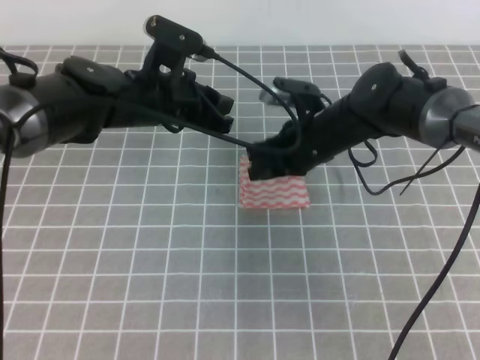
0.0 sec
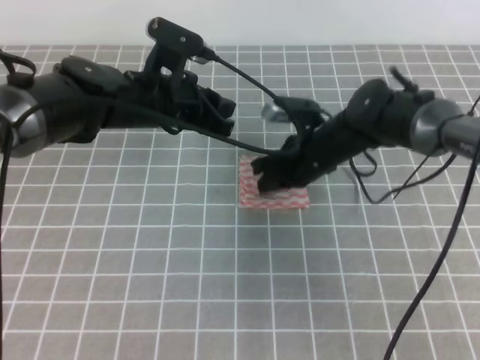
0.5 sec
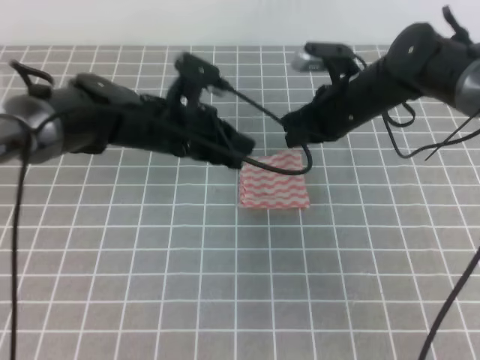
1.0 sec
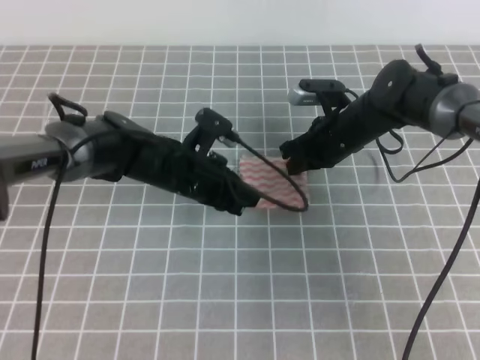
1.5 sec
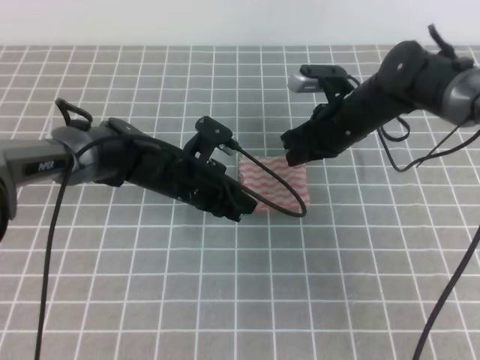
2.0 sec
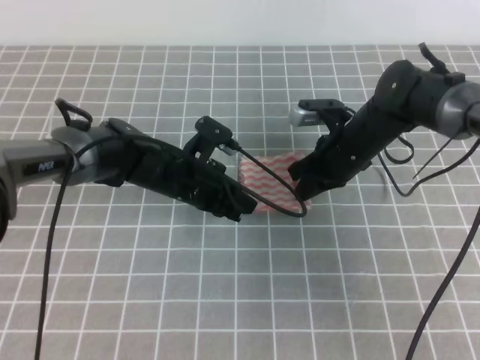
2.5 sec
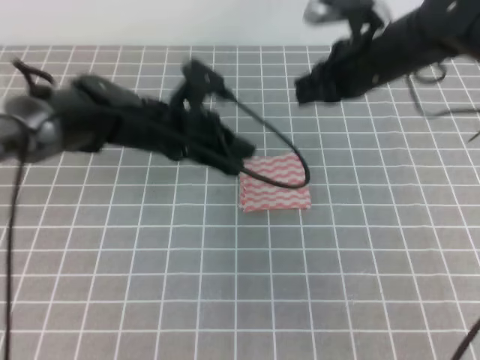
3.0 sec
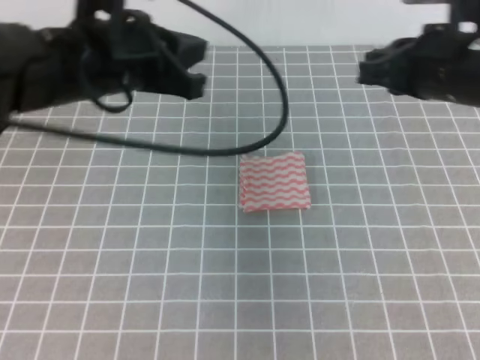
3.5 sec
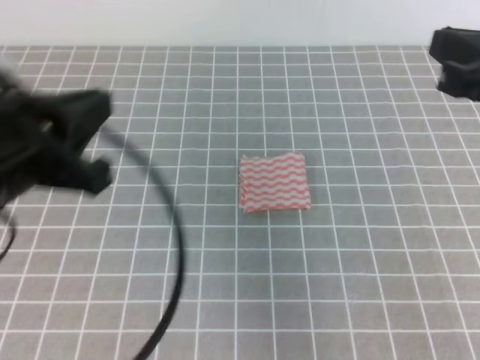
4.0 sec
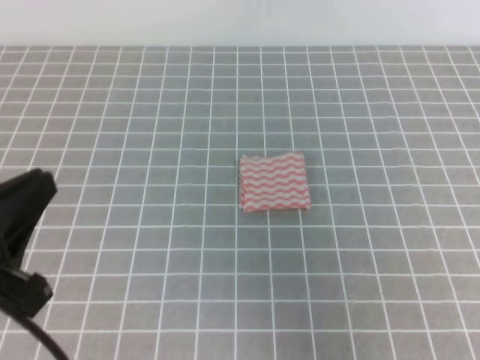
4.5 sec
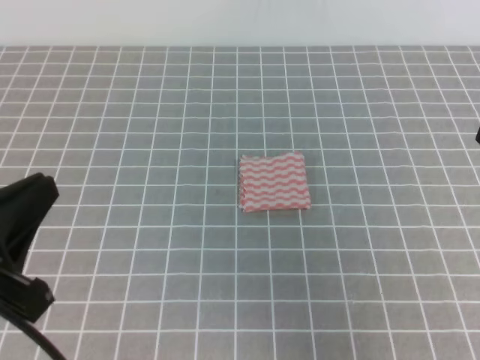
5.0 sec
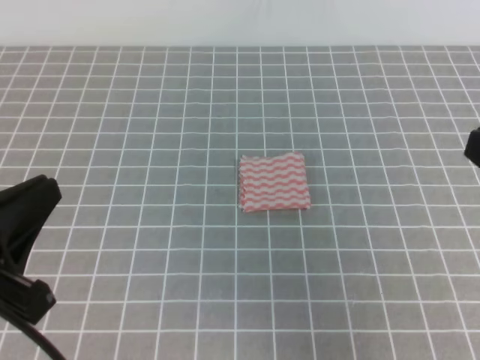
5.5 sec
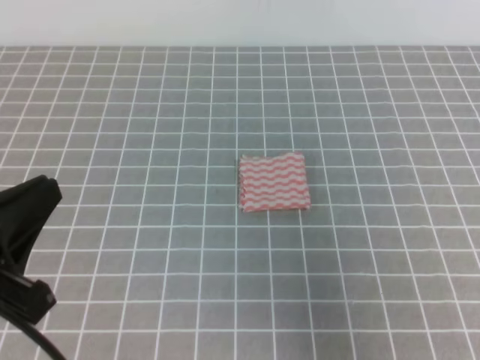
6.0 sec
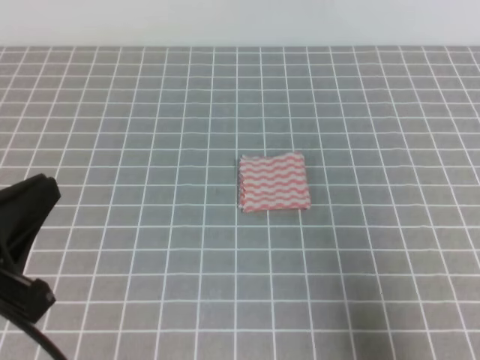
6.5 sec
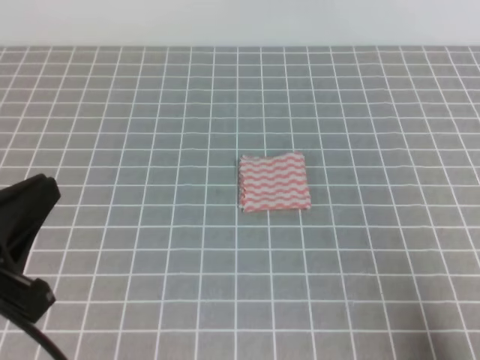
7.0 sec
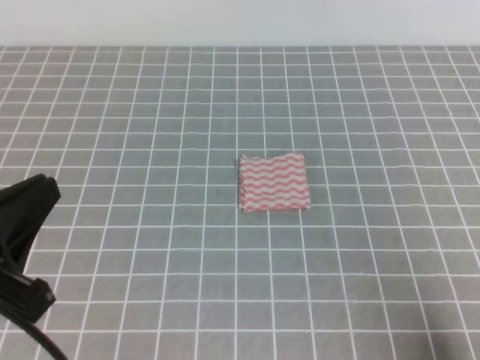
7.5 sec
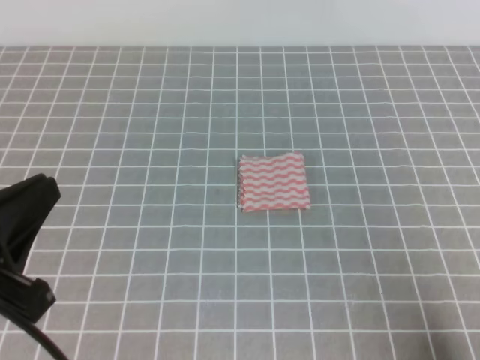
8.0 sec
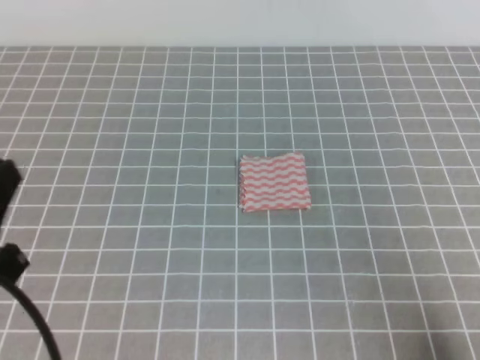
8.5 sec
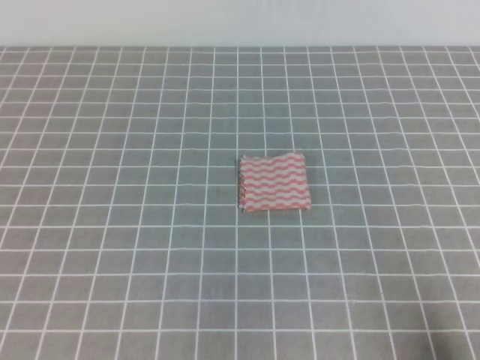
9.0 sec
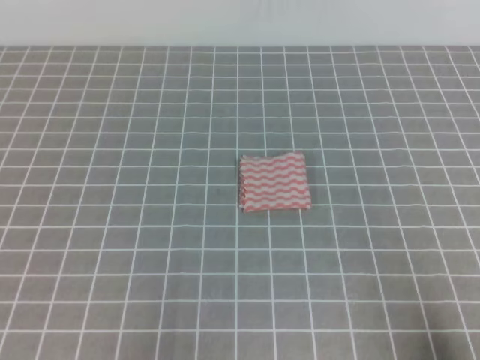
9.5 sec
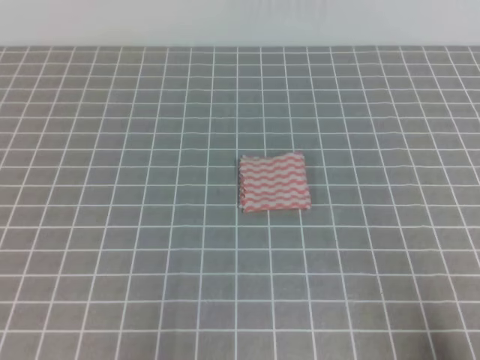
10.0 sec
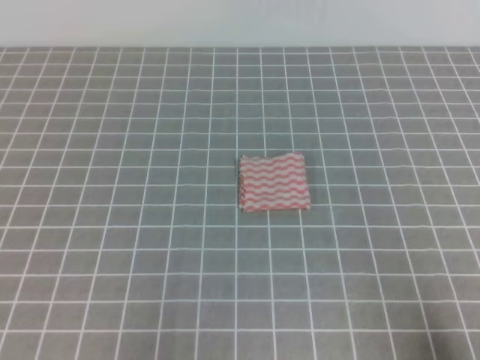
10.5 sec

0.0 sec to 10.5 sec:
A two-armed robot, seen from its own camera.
0.0 sec to 2.0 sec: The right gripper shifts by roughly 5 cm, and closes up. Meanwhile the left gripper travels downward by approximately 10 cm, and closes up.
2.0 sec to 4.0 sec: The right gripper is displaced backward, upward and to the right by about 30 cm, while the left gripper shifts some 30 cm upward, backward and to the left.
4.0 sec to 6.5 sec: The left gripper is displaced backward by approximately 10 cm. The right gripper moves backward, downward and to the right, some 20 cm.
6.5 sec to 8.5 sec: The right gripper travels downward by about 10 cm.
8.5 sec to 10.5 sec: The left gripper travels downward and backward by approximately 15 cm.

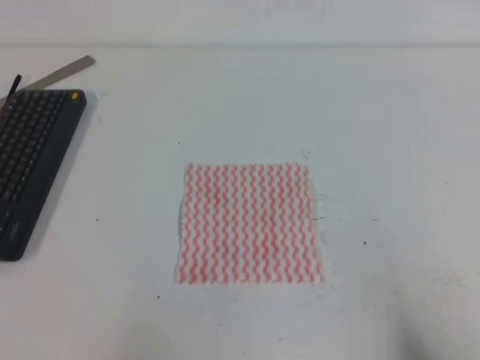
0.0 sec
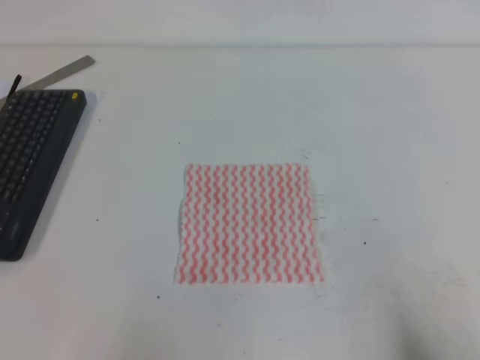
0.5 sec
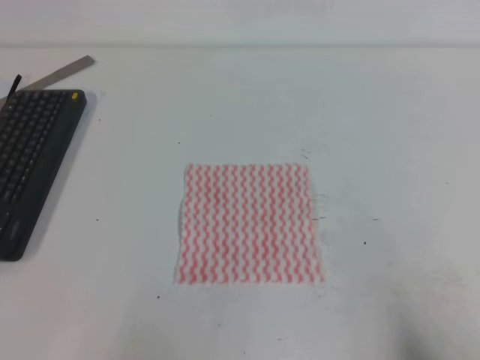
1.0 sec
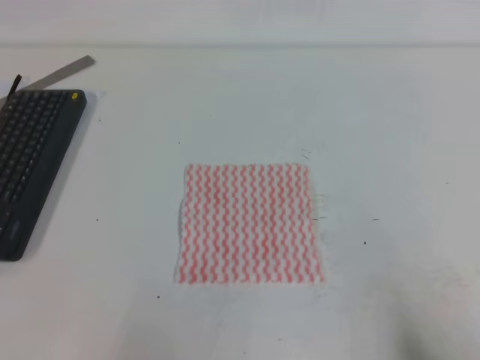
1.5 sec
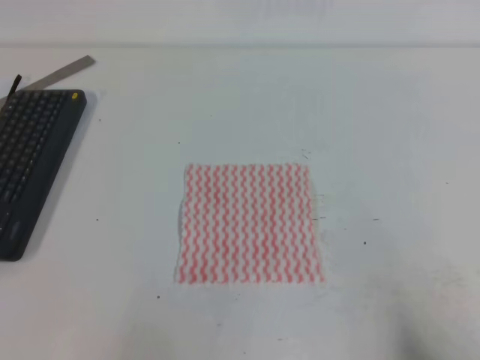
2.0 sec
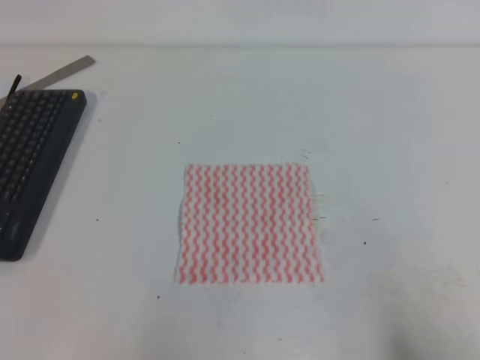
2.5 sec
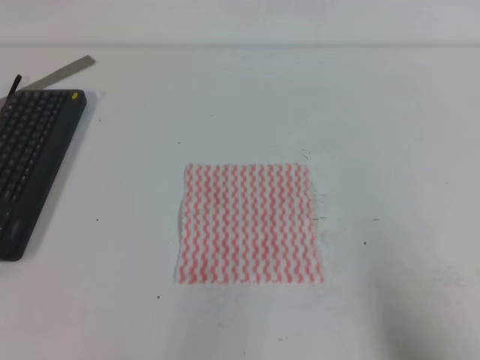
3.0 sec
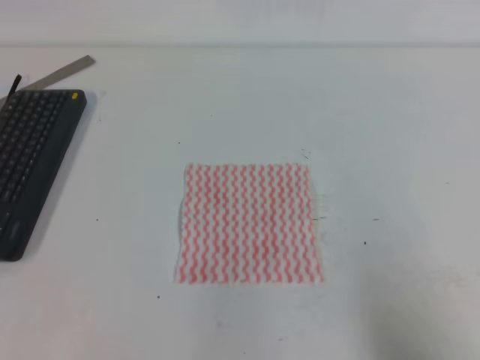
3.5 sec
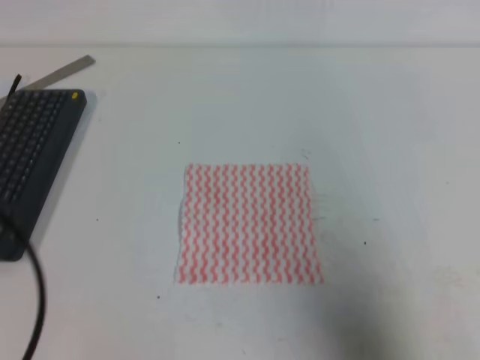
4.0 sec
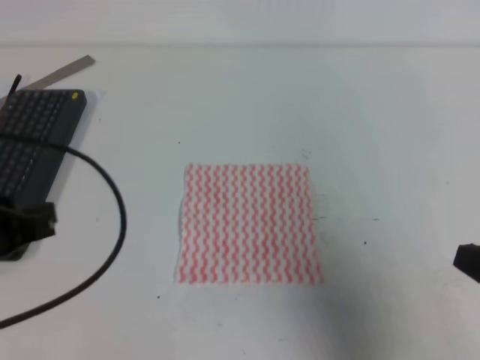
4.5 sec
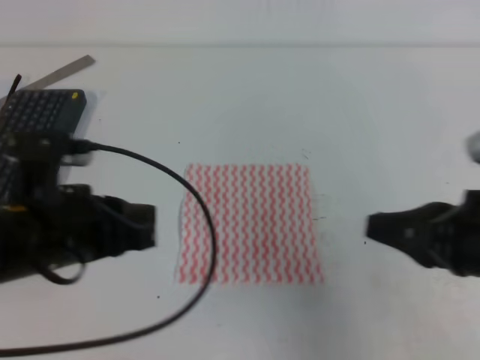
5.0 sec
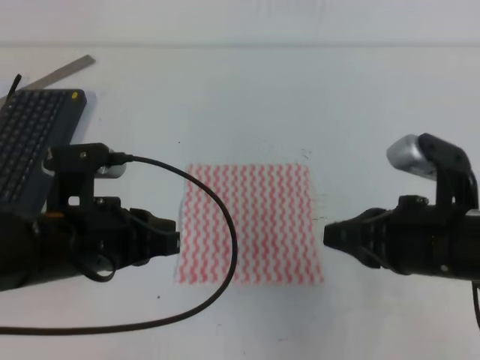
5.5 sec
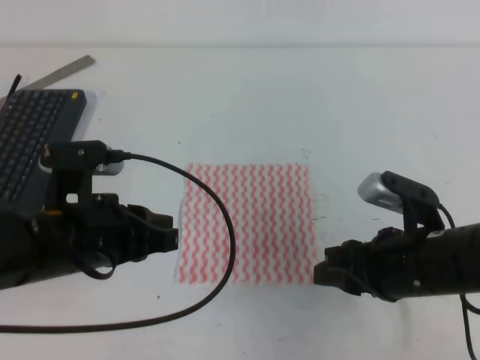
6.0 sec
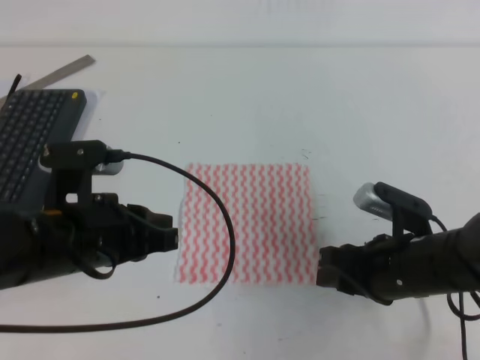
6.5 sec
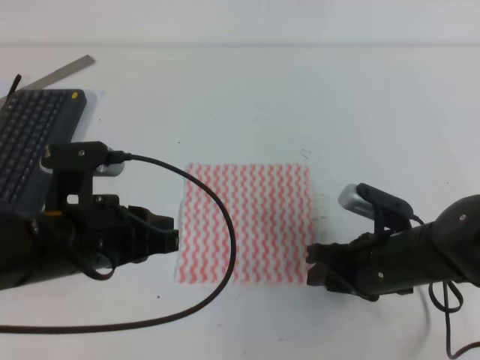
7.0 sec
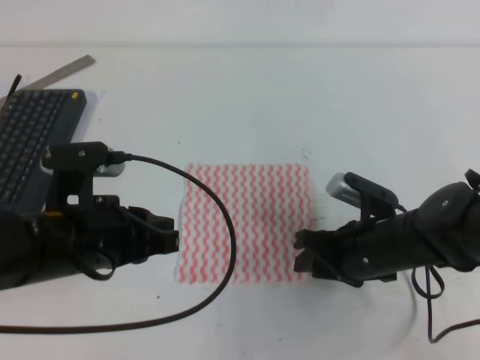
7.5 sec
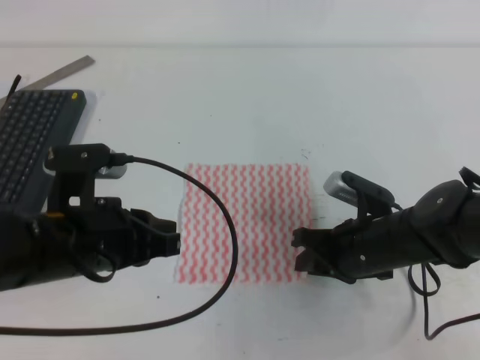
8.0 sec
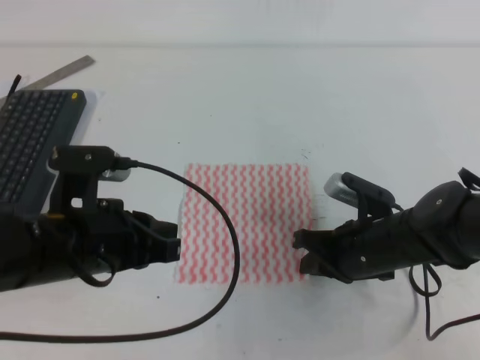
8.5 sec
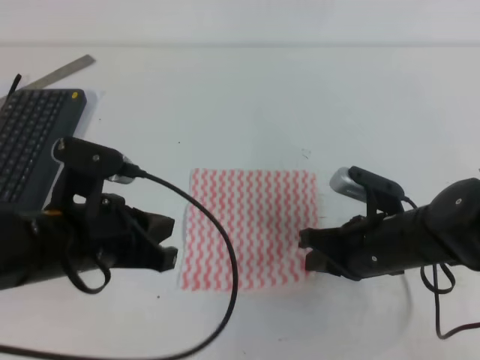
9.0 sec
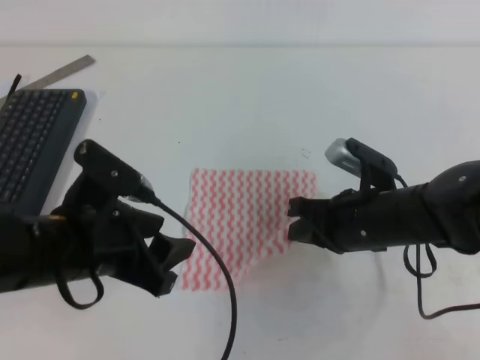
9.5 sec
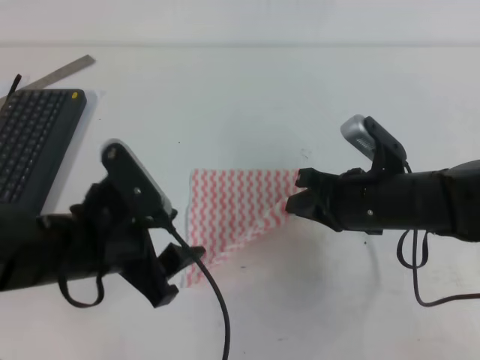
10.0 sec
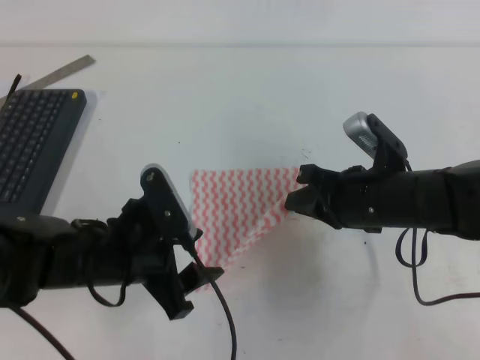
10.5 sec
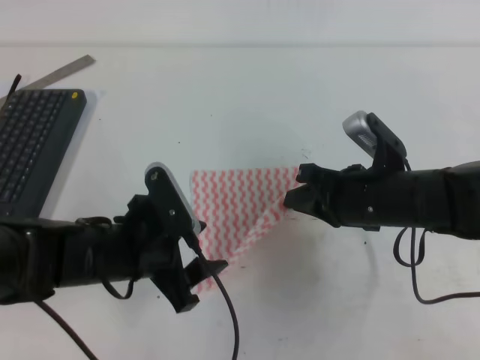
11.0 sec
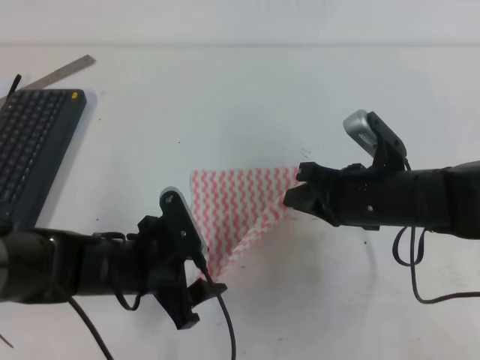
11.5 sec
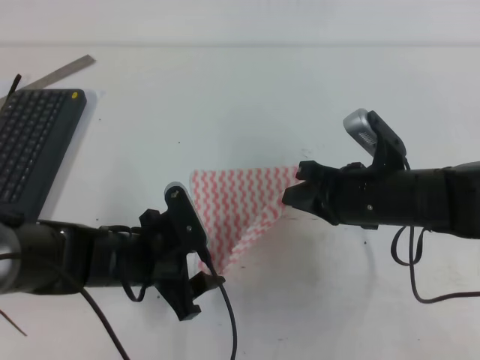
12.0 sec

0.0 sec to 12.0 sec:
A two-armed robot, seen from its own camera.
0.0 sec to 2.0 sec: Both grippers stay put.
2.0 sec to 4.0 sec: Both grippers move upward, about 10 cm.
4.0 sec to 6.0 sec: The right gripper goes some 20 cm forward, to the left and downward, and opens up, while the left gripper shifts approximately 15 cm forward, to the right and downward.
6.0 sec to 8.0 sec: The right gripper shifts about 10 cm downward and forward.
8.0 sec to 10.0 sec: The left gripper opens up. The right gripper heads upward, covering roughly 5 cm, and closes up.
10.0 sec to 12.0 sec: The left gripper goes about 10 cm downward.

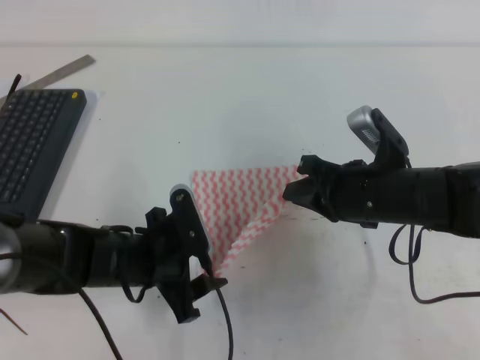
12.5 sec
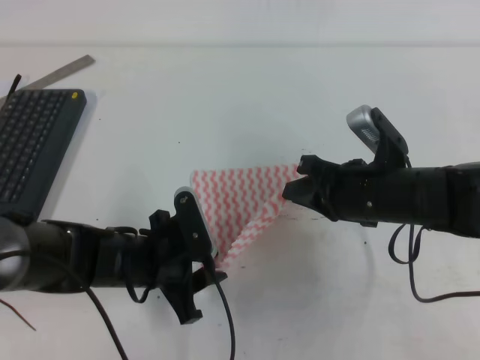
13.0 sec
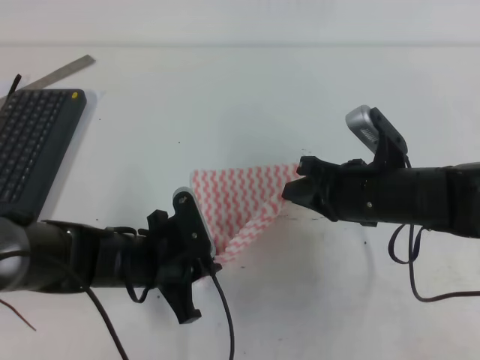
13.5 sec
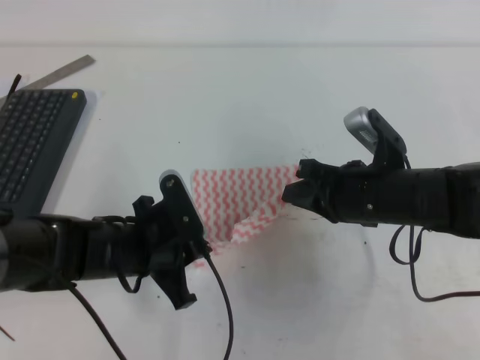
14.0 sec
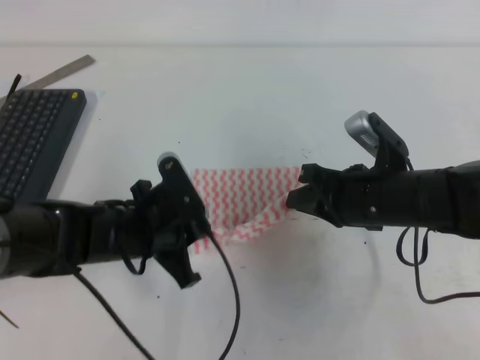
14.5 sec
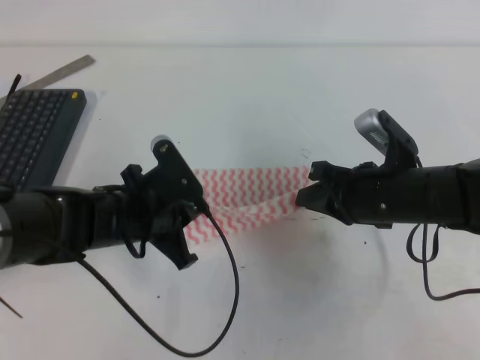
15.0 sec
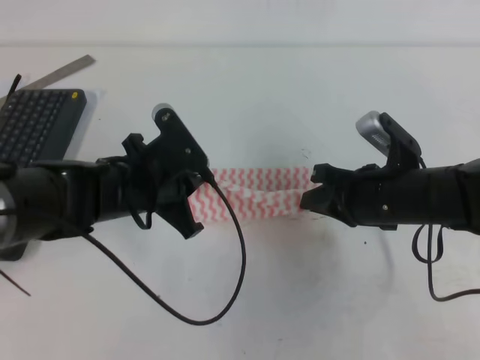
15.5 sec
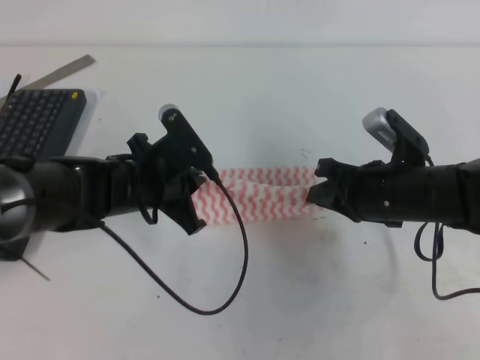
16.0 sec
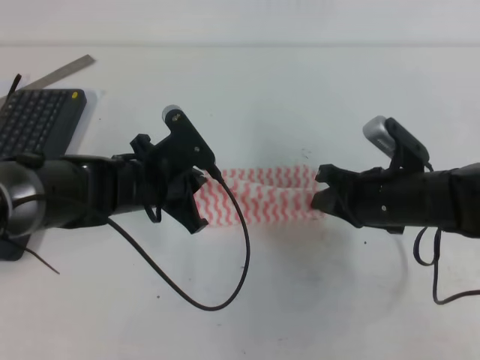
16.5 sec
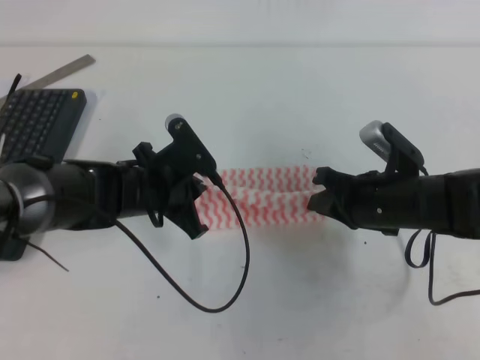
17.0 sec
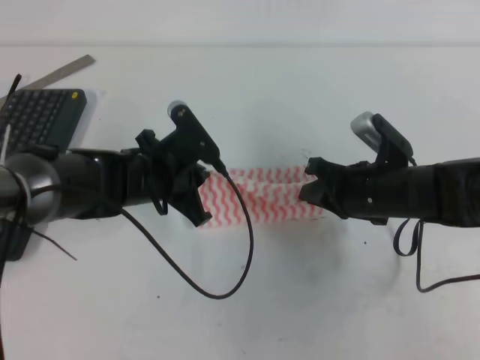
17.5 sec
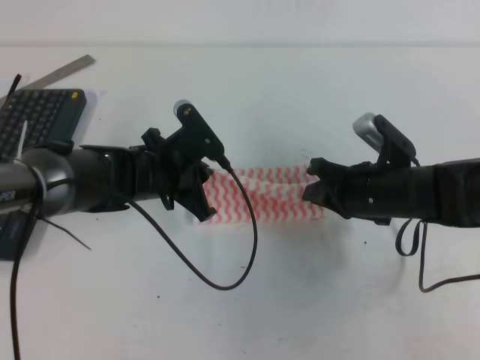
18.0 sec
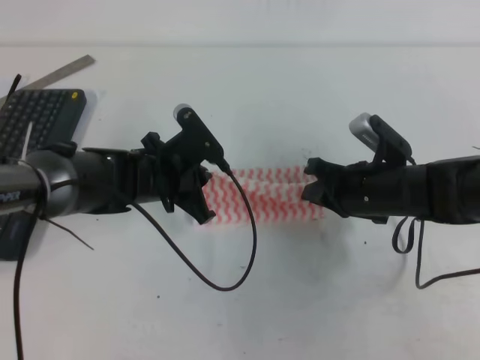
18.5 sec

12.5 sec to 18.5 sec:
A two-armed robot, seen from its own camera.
12.5 sec to 14.5 sec: The left gripper closes up.
14.5 sec to 16.5 sec: The left gripper shifts approximately 5 cm forward.
16.5 sec to 18.5 sec: The grippers make only small movements.
